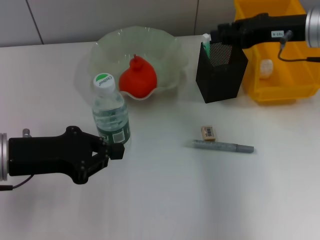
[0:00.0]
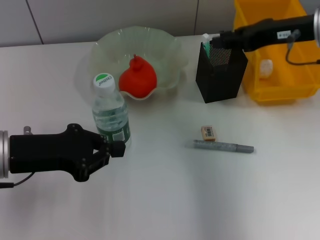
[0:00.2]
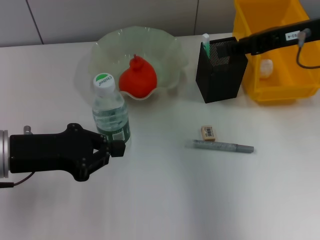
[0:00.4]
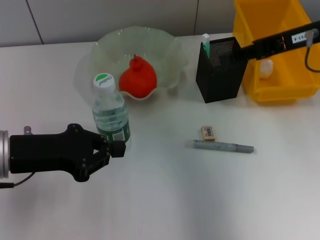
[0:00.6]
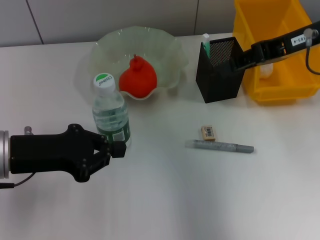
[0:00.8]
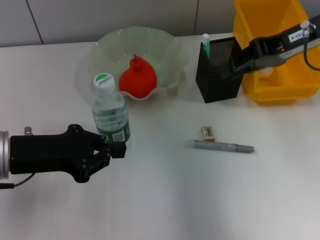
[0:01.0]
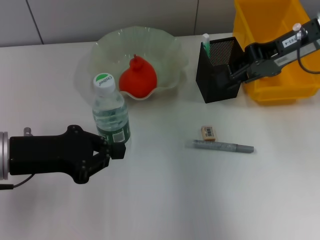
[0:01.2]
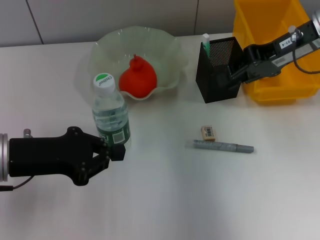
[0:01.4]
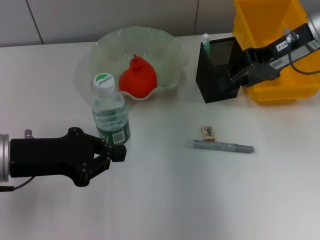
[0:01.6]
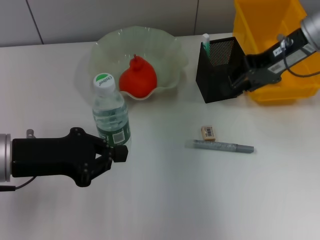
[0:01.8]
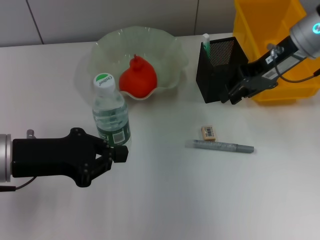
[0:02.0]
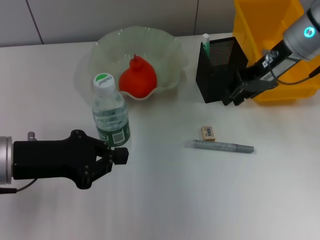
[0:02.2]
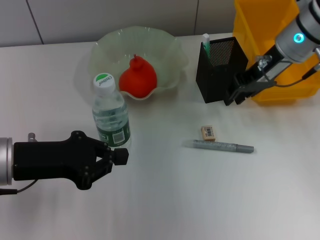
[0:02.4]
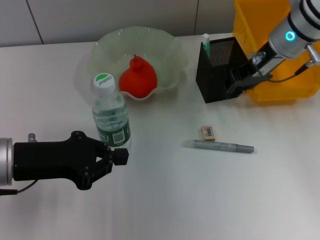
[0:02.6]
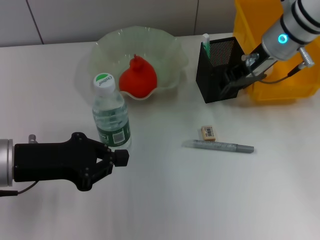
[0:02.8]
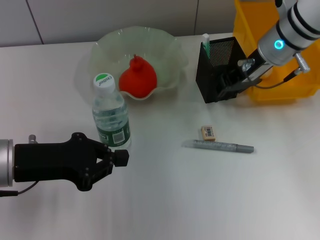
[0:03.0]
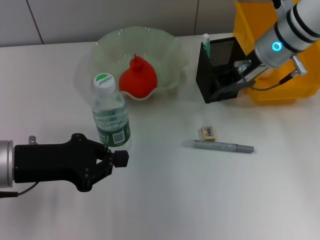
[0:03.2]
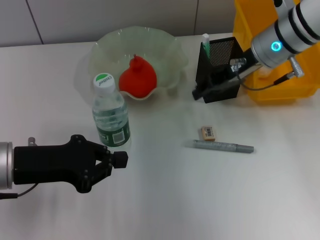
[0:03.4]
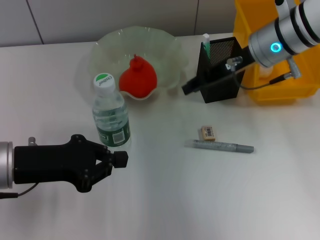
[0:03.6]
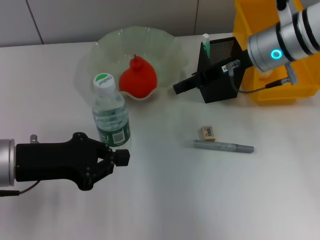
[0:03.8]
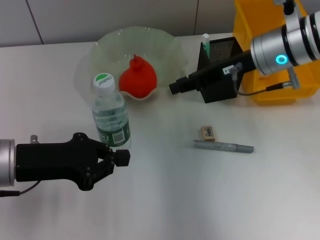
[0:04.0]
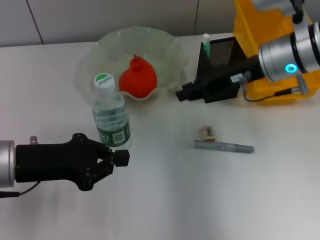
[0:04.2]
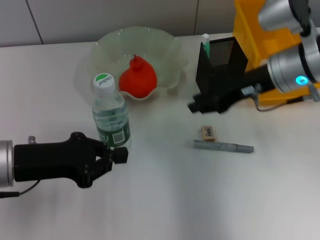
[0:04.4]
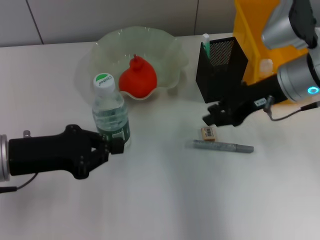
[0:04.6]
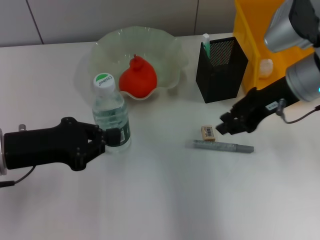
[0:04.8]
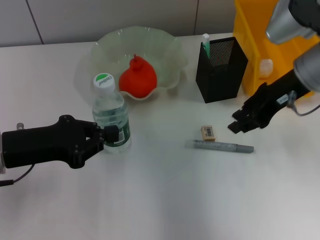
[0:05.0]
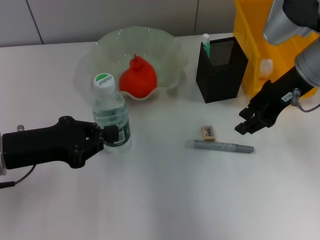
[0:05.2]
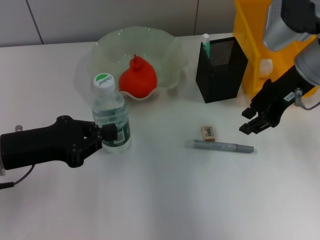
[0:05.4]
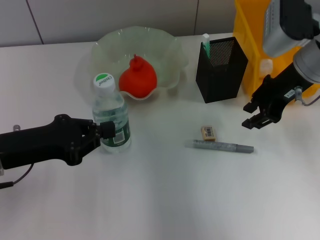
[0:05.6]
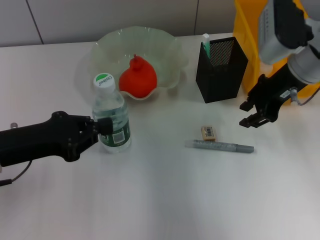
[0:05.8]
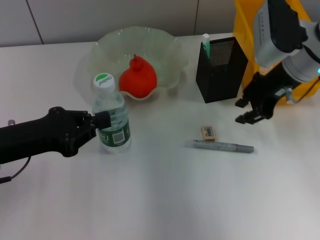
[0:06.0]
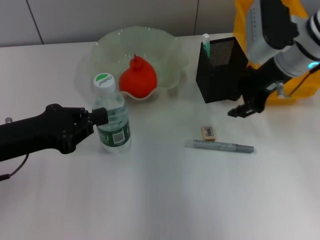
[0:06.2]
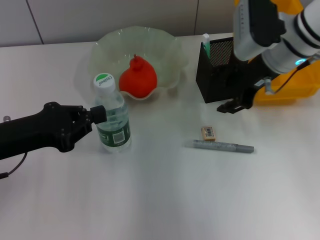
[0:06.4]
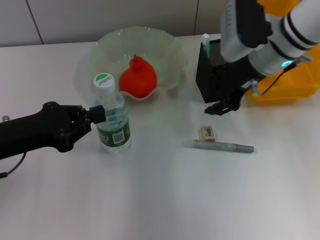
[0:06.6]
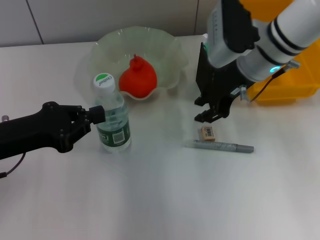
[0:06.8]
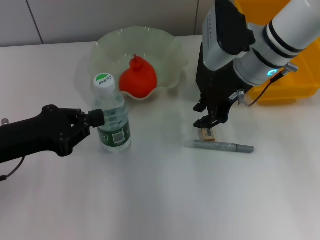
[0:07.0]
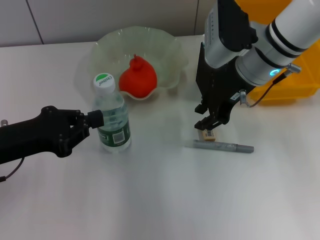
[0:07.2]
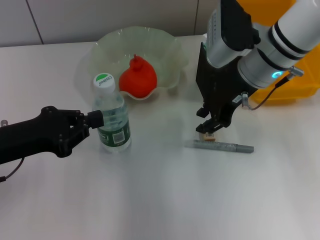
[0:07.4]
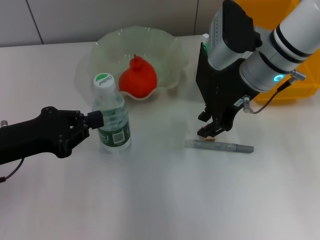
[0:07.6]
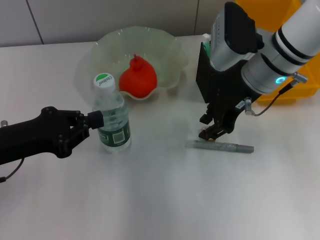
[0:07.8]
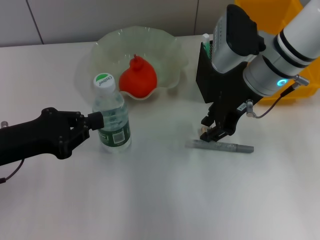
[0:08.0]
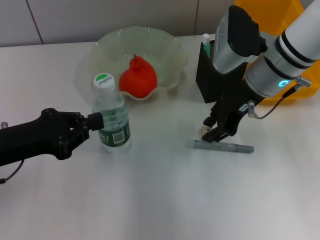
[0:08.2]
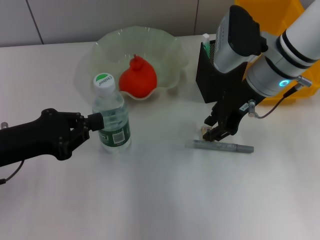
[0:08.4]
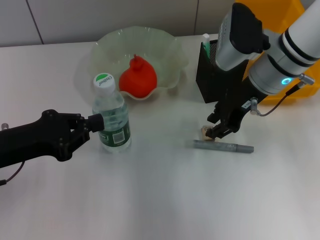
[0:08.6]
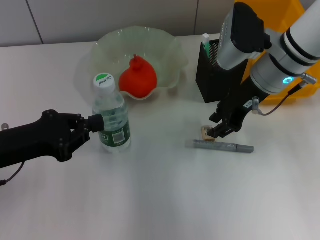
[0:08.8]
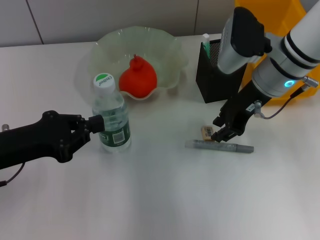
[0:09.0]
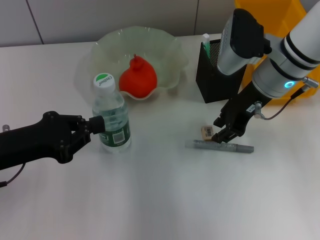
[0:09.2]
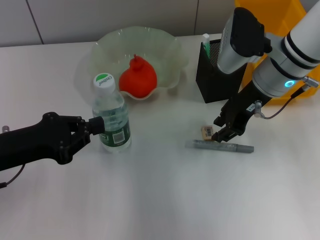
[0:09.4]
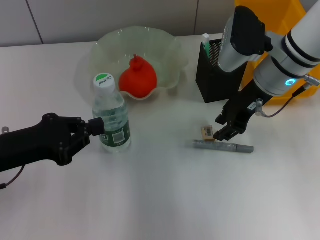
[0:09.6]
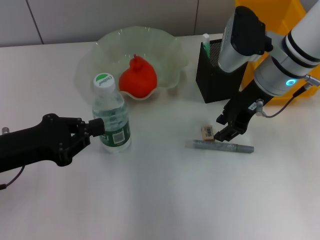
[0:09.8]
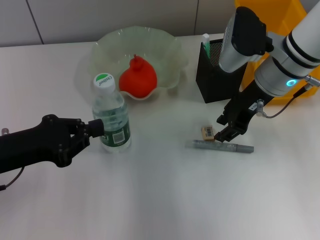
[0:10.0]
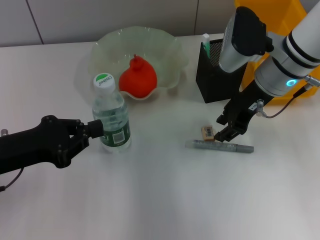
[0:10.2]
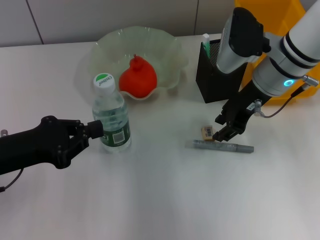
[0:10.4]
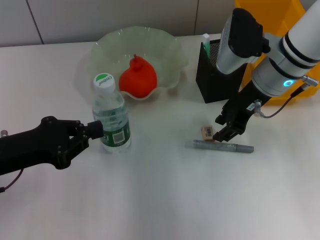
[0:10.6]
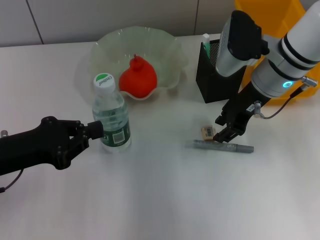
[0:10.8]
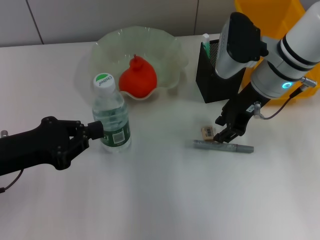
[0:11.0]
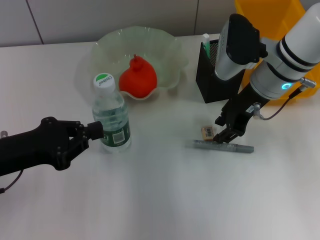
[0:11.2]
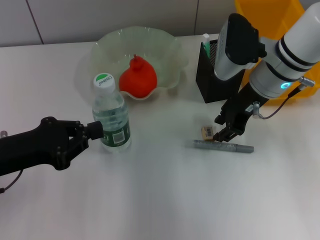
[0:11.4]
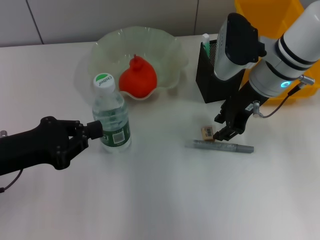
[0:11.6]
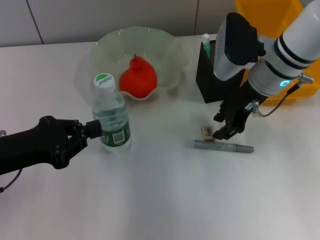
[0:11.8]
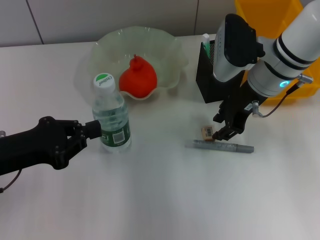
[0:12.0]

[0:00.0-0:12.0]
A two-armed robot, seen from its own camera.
0:01.6 to 0:03.0: The right gripper is displaced to the left by some 5 cm.
0:03.0 to 0:04.4: The right gripper moves backward, some 5 cm.
0:06.0 to 0:07.6: The right gripper goes about 5 cm to the left.
0:07.6 to 0:09.0: There are only small adjustments of the grippers.
0:09.0 to 0:10.4: Both grippers stay put.
0:10.4 to 0:12.0: The grippers make only small movements.

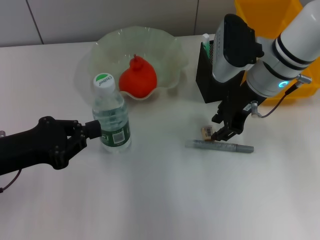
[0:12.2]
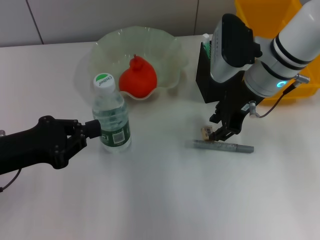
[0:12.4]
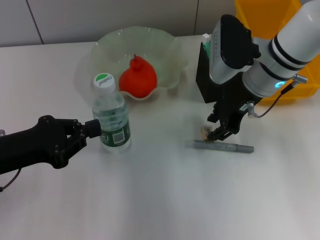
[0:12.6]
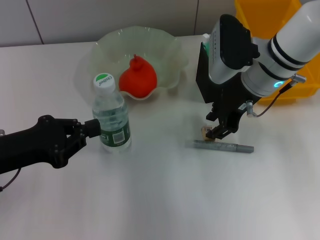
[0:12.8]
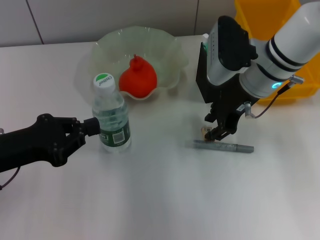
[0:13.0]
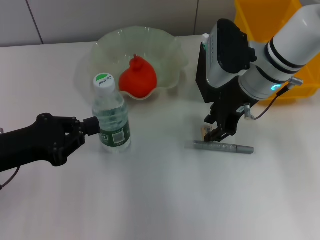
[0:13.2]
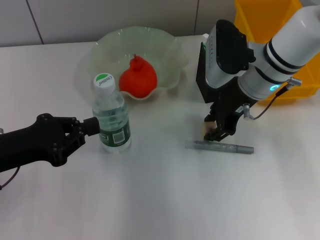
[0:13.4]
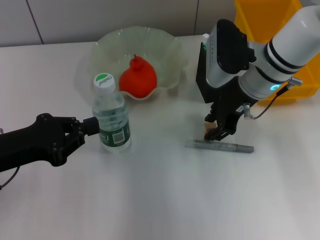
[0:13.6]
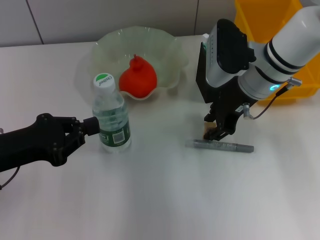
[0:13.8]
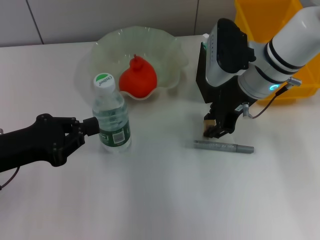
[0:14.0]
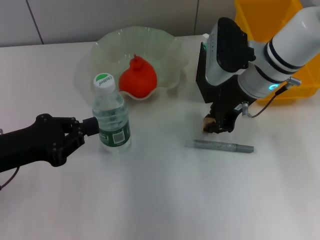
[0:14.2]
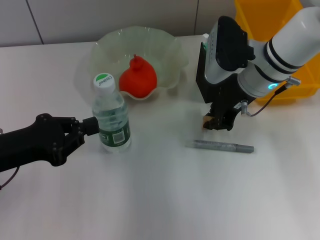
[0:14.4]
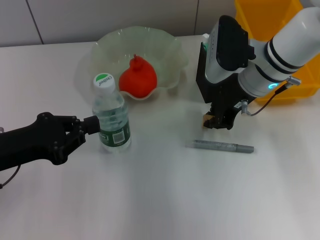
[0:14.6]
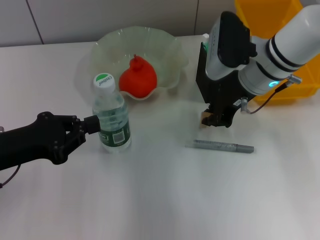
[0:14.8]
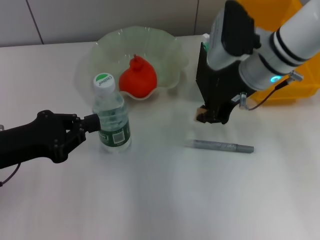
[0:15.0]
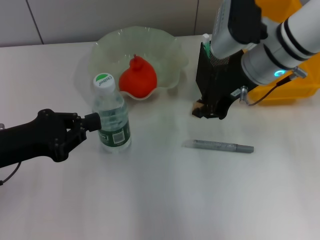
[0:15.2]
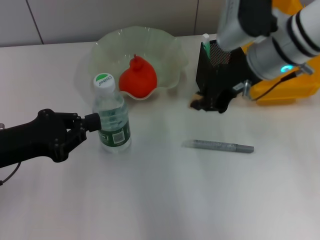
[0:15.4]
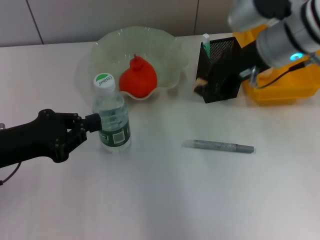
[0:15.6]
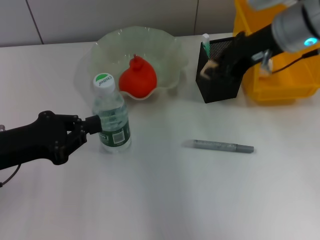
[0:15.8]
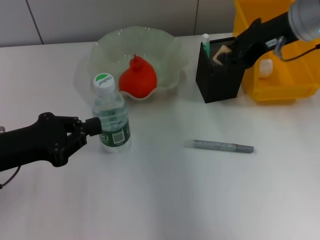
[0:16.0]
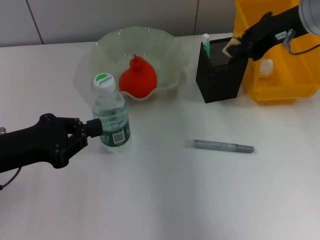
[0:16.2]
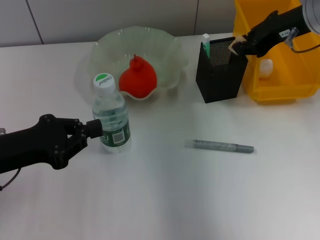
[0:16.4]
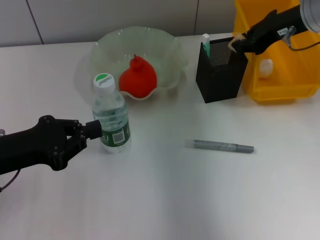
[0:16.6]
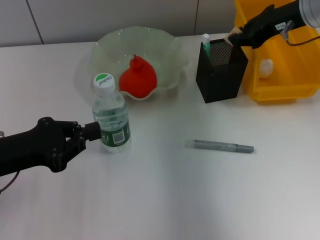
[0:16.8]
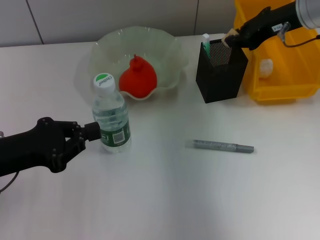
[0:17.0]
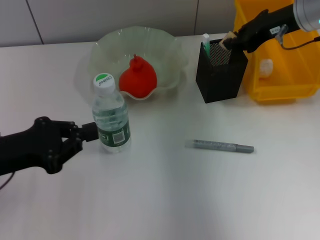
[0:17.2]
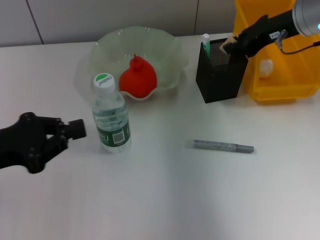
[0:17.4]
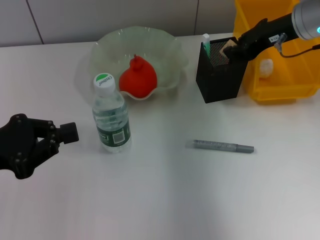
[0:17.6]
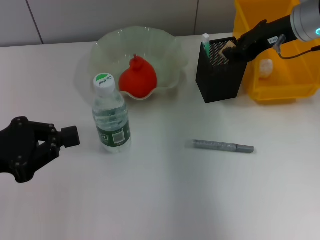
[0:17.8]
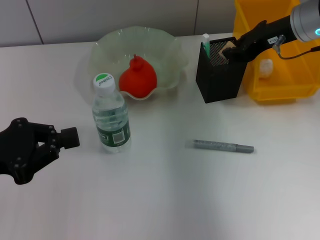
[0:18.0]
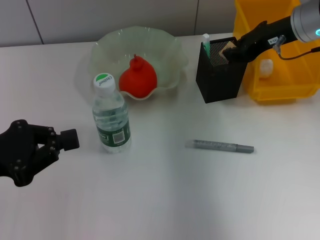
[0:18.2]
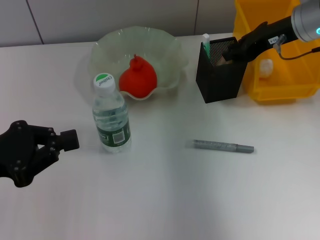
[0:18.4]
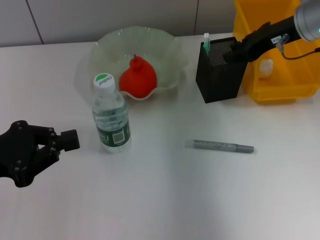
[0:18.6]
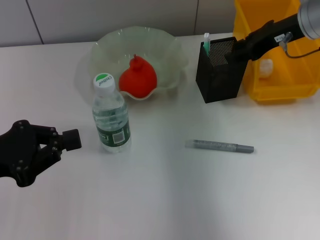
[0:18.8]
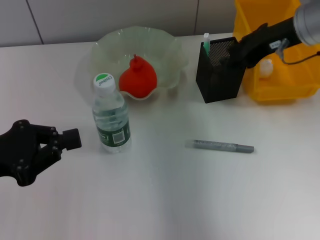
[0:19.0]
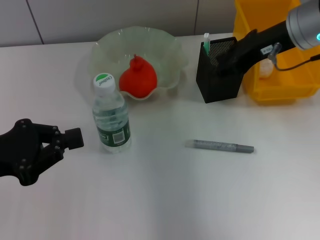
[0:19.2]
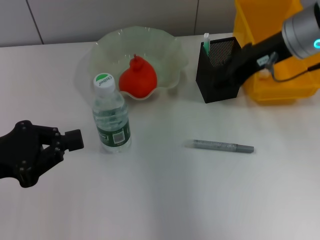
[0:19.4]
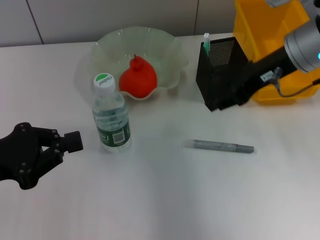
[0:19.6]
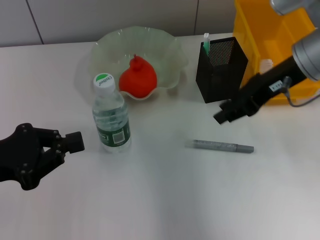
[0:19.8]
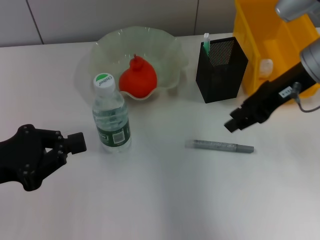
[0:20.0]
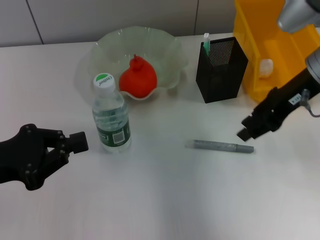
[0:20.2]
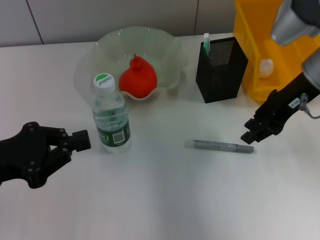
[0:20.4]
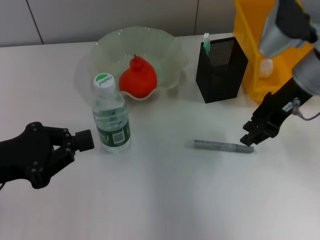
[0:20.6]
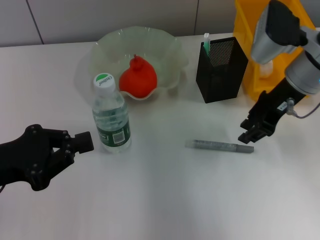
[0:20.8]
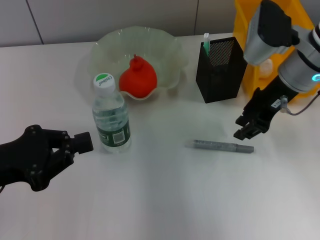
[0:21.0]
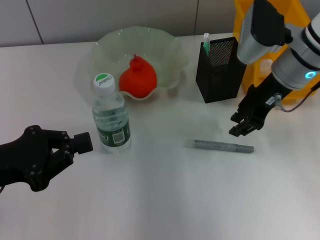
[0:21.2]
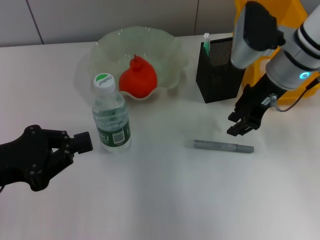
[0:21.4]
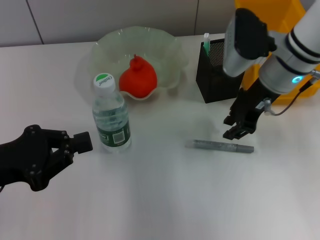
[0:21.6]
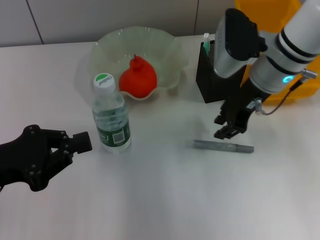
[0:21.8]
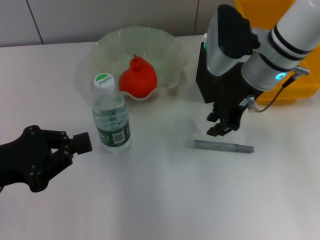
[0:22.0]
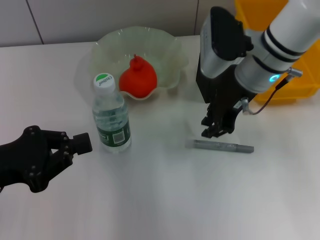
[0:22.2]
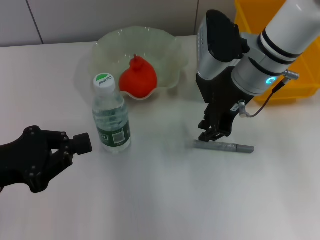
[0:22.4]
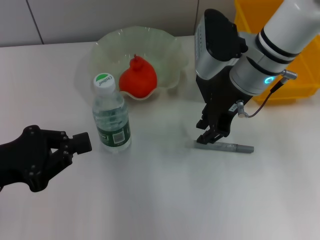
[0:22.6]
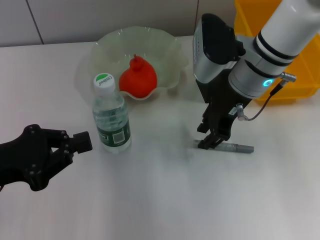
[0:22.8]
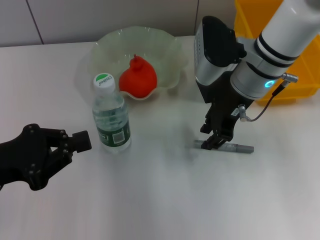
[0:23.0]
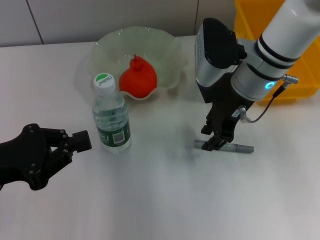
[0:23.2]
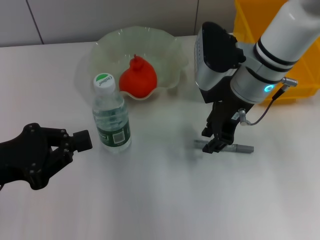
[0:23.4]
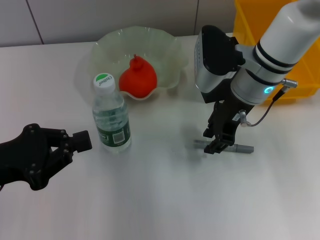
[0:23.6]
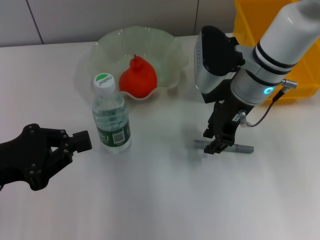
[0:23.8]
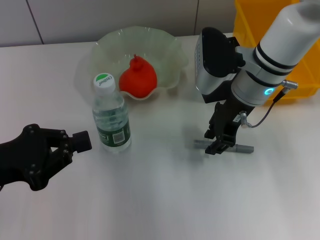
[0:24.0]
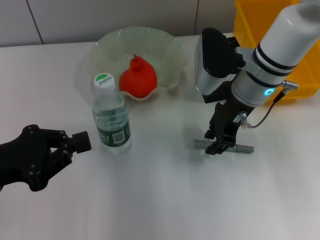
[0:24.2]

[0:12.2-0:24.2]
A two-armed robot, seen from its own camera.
Step, 0:12.2 to 0:14.4: Grab the eraser with the right hand.
Step, 0:14.6 to 0:18.6: Put the eraser into the pen holder with the right hand.
0:12.2 to 0:13.8: Both grippers stay about where they are.
0:13.8 to 0:15.2: The right gripper closes.
0:15.2 to 0:16.6: The right gripper goes some 10 cm to the right.
0:16.6 to 0:18.2: The grippers move only a little.
0:18.2 to 0:19.8: The right gripper goes approximately 5 cm backward.
0:19.8 to 0:21.2: The right gripper shifts by approximately 5 cm.
0:21.2 to 0:22.6: The right gripper shifts about 5 cm to the left.
0:22.6 to 0:24.2: There are only small adjustments of the grippers.
